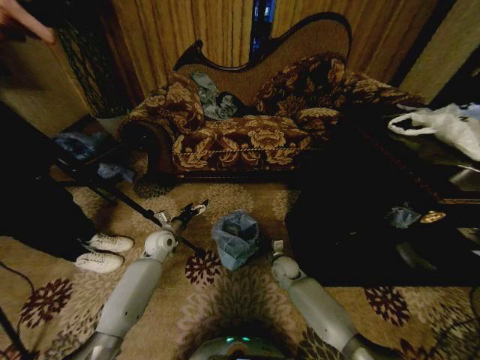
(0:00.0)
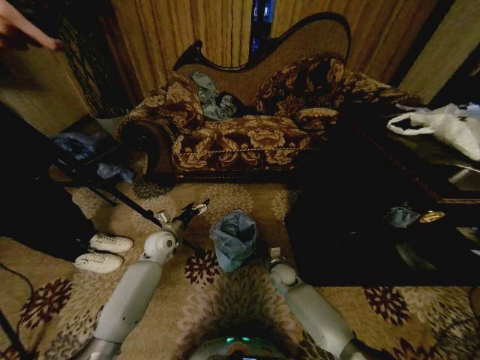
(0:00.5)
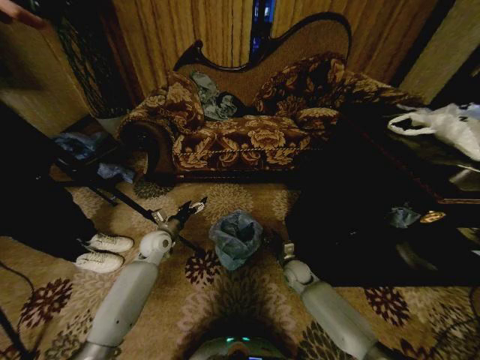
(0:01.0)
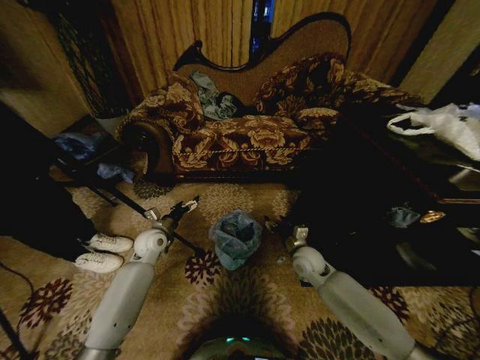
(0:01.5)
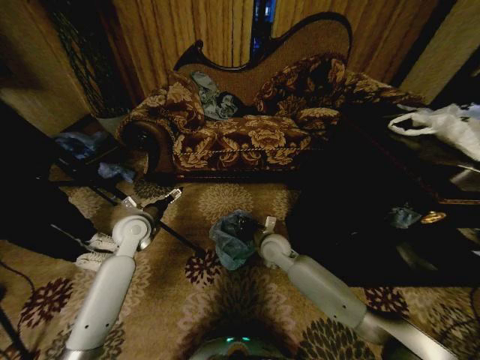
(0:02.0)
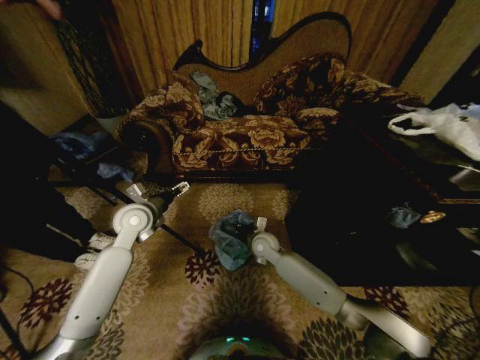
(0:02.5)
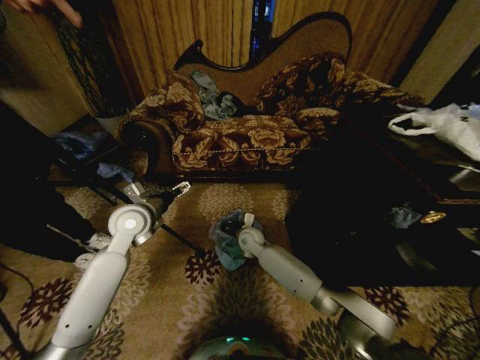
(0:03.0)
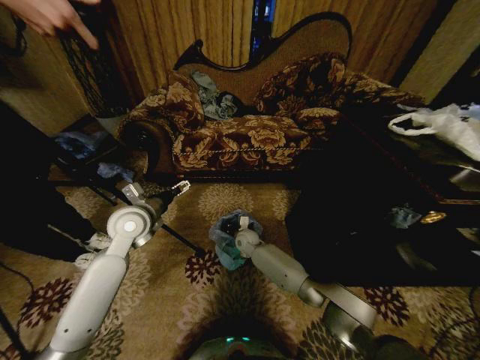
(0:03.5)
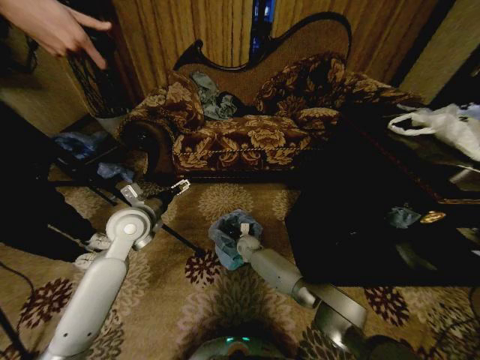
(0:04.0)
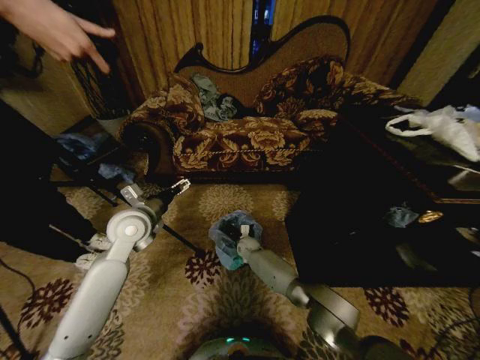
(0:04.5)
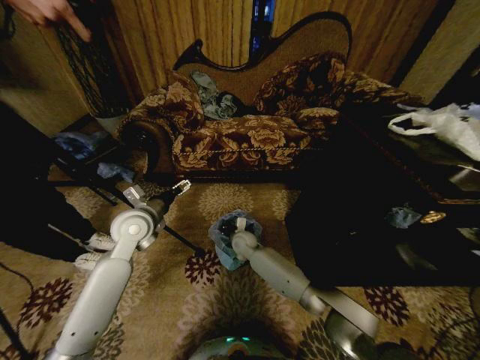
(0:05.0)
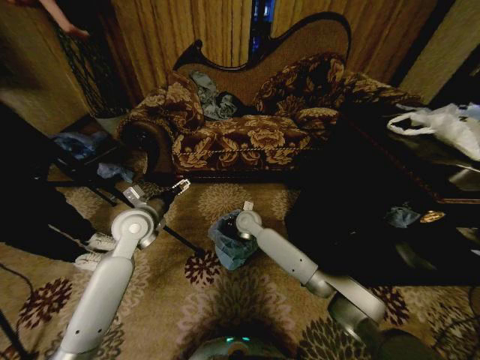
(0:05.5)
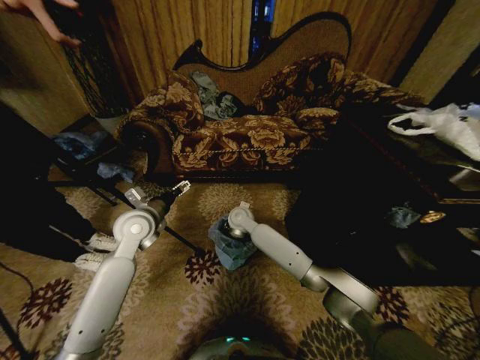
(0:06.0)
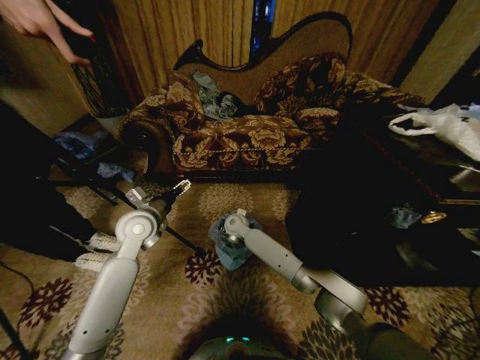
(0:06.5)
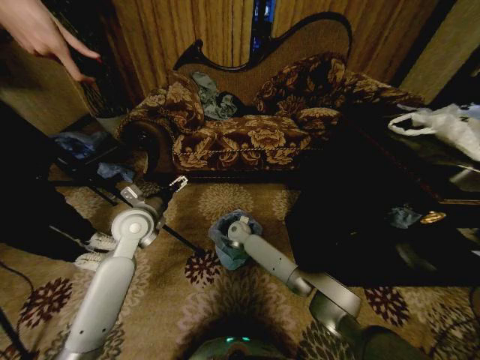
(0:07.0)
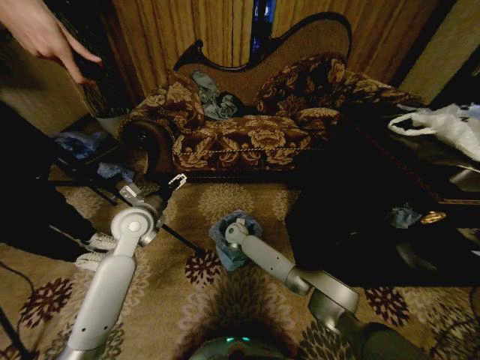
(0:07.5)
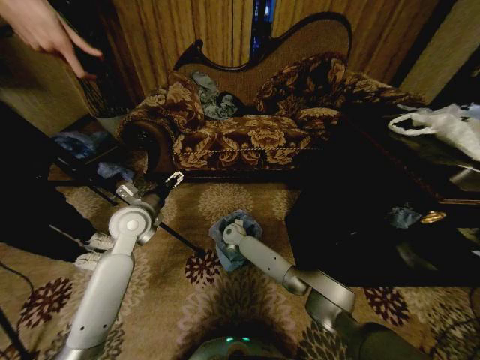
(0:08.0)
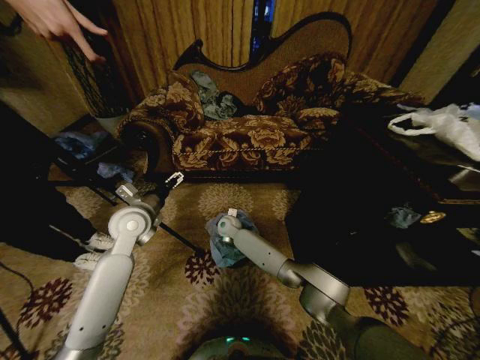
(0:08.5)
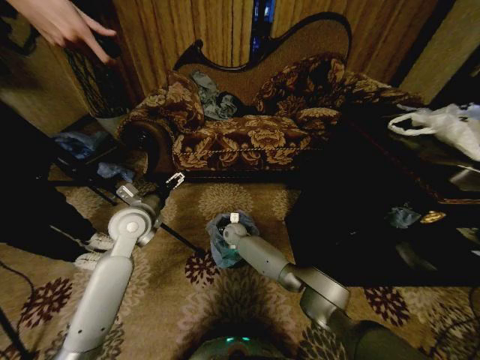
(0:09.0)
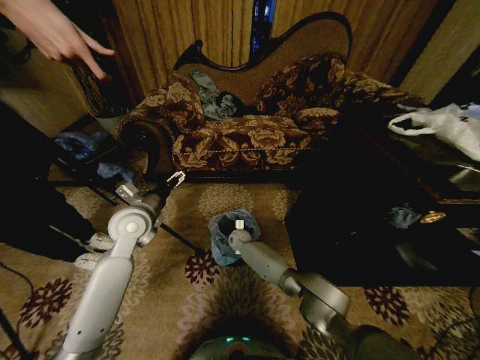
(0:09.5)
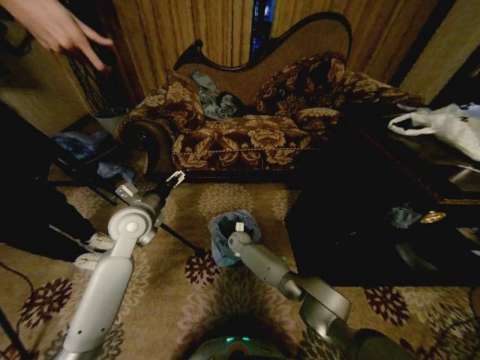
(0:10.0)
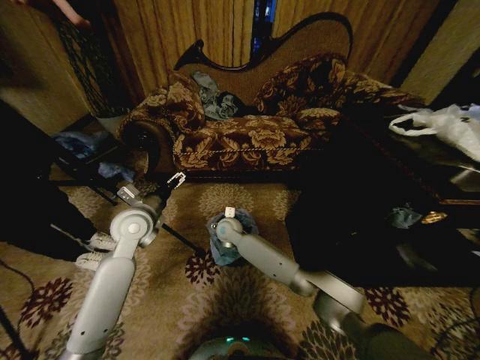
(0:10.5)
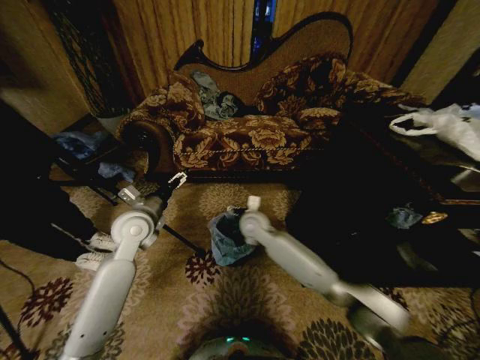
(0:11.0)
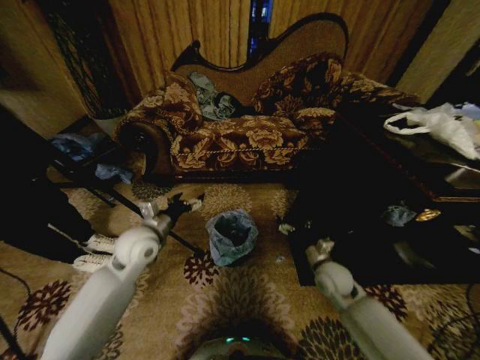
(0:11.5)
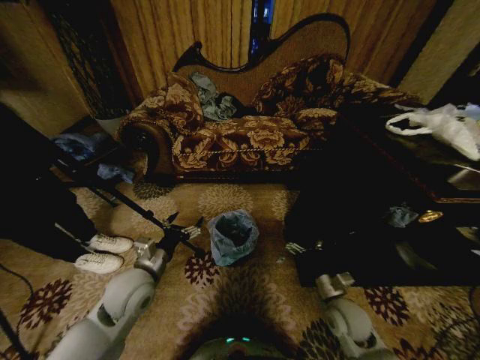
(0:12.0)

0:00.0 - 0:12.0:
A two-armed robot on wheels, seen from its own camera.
Task of the whole recording: Place a garbage bag over the trash bin.
0:00.0 - 0:02.0: The left gripper shifts some 15 cm upward; the right gripper heads upward and to the left, covering approximately 15 cm, and opens, then closes again.
0:02.0 - 0:04.0: The right gripper heads downward, forward and to the left, covering roughly 20 cm. The left gripper moves upward, about 5 cm.
0:04.0 - 0:06.0: The right gripper shifts some 20 cm upward, and opens its fingers.
0:06.0 - 0:08.0: The right gripper moves downward, roughly 10 cm, and opens up.
0:08.0 - 0:10.0: The right gripper goes approximately 5 cm downward.
0:10.0 - 0:12.0: The right gripper is displaced to the right and backward by about 40 cm. The left gripper shifts approximately 15 cm backward and downward.

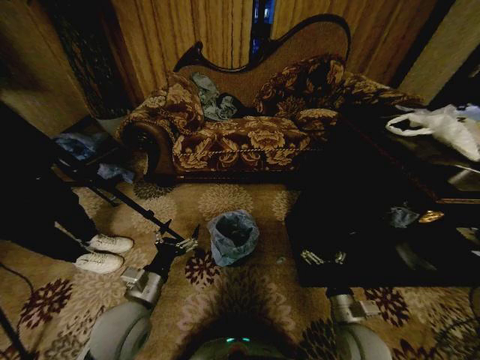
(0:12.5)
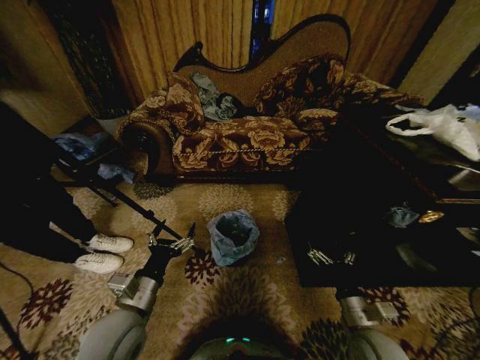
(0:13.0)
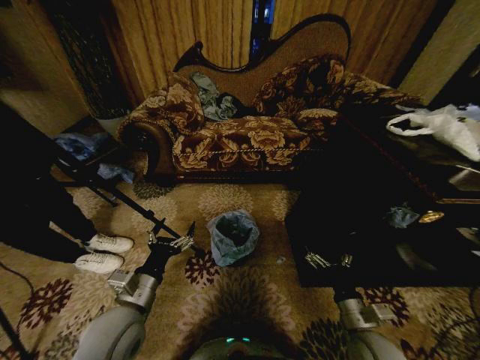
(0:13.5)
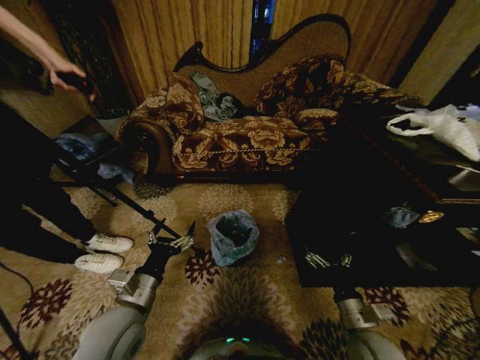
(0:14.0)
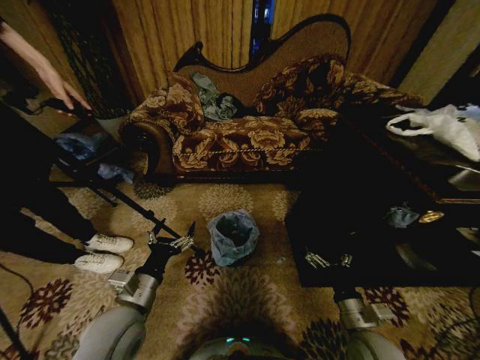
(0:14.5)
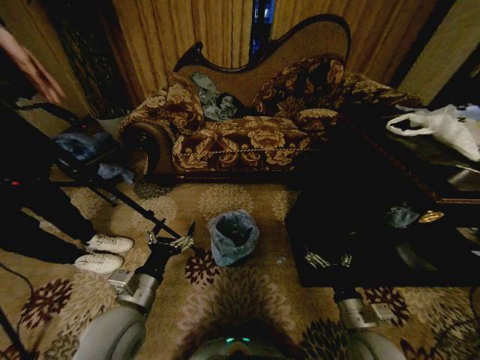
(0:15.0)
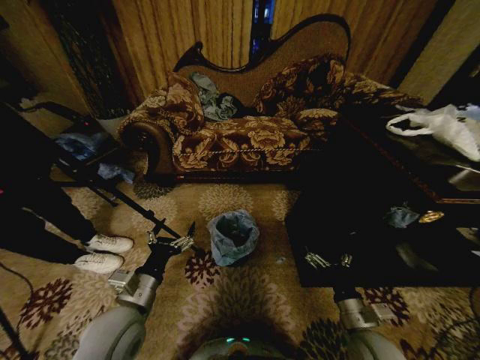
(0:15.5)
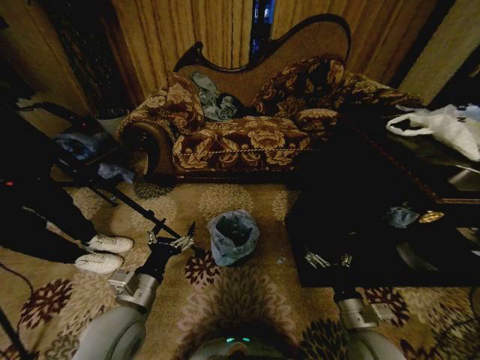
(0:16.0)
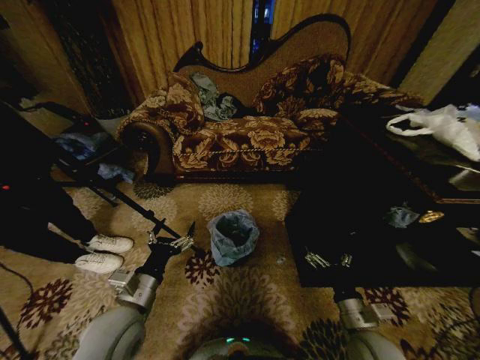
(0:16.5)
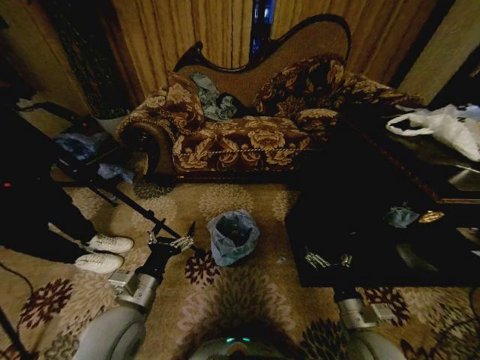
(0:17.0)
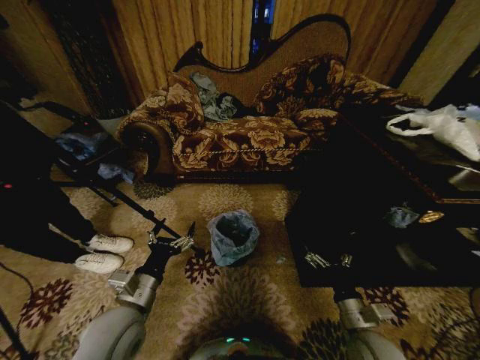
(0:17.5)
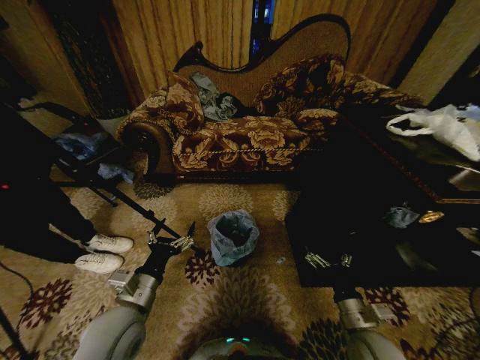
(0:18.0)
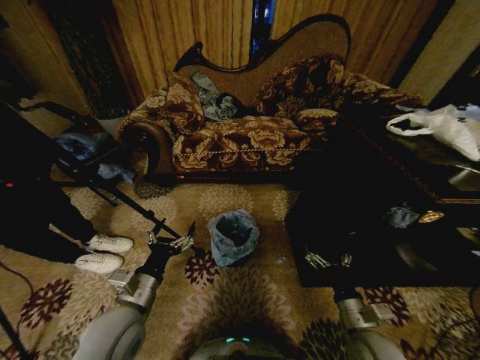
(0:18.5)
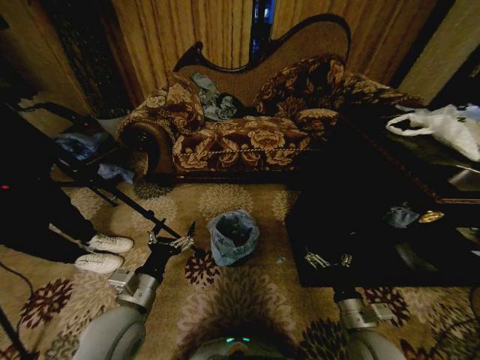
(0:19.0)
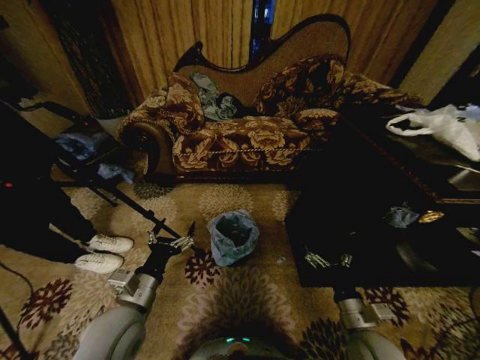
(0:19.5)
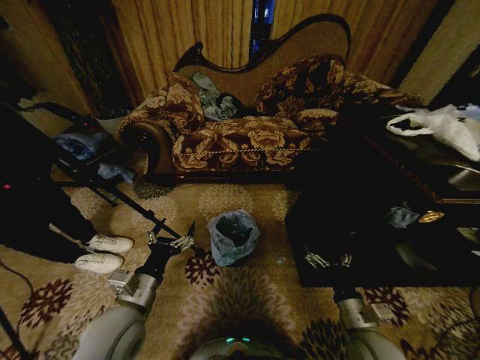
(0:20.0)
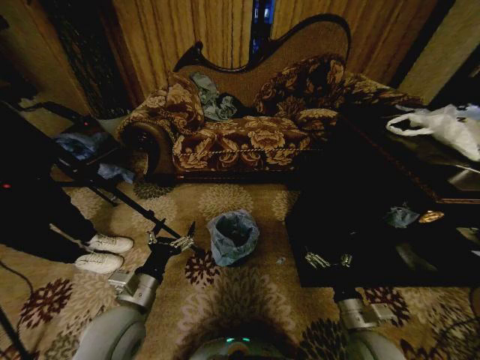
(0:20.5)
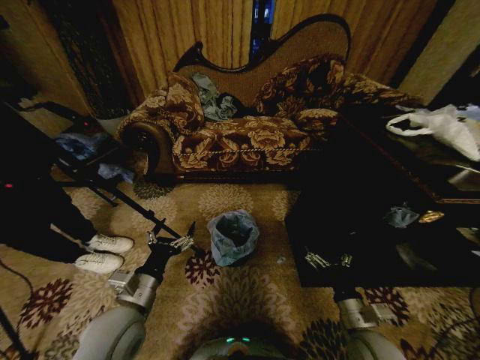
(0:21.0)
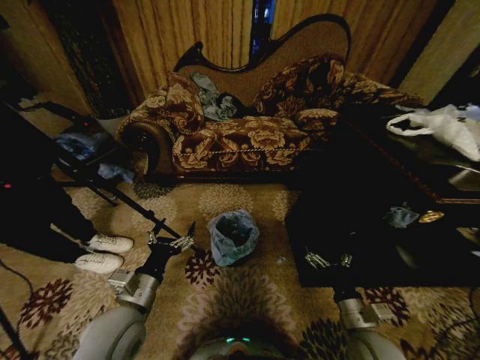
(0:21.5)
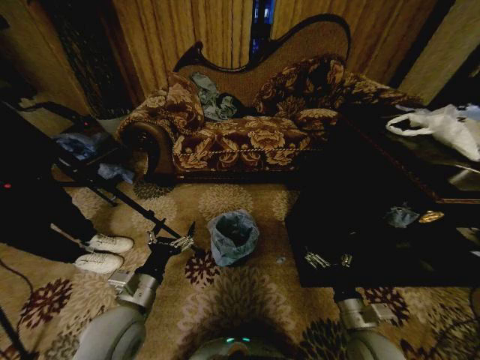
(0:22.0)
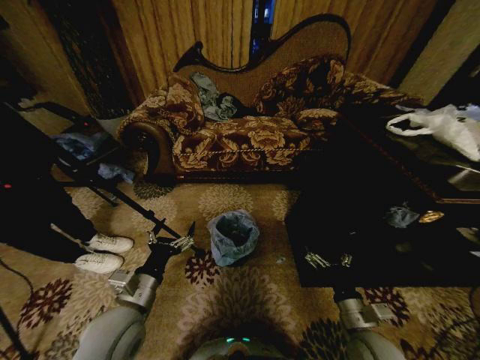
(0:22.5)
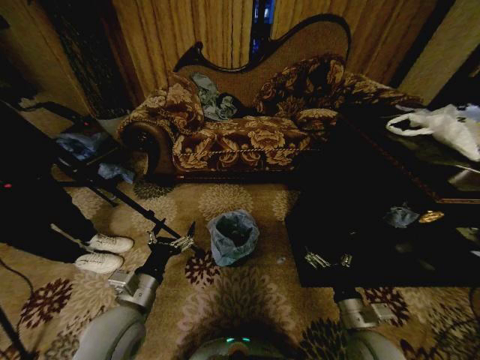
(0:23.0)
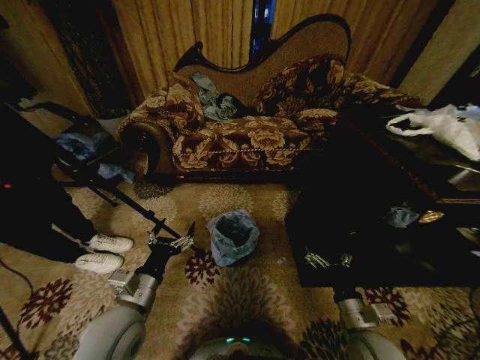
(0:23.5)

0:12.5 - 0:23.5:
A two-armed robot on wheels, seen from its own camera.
Task of the whole recording: Place a garbage bag over the trash bin.
0:12.5 - 0:14.5: The grippers move only a little.
0:14.5 - 0:23.5: The two grippers keep their place.
